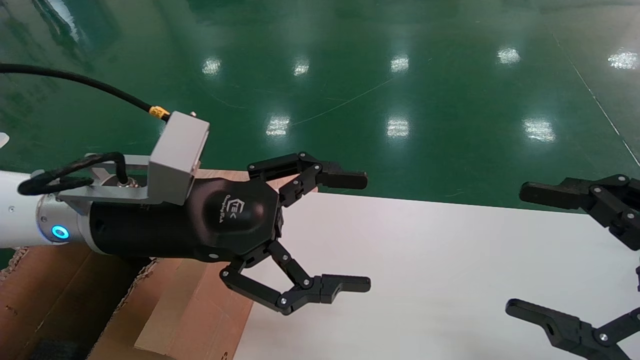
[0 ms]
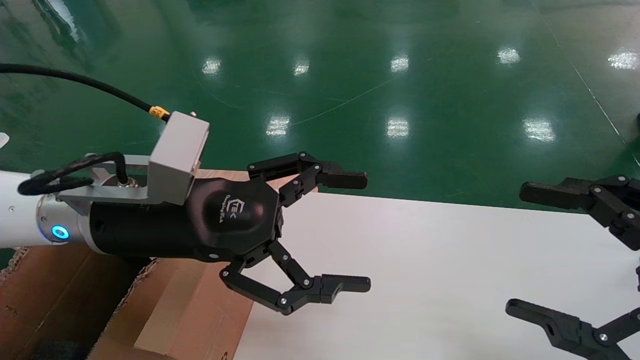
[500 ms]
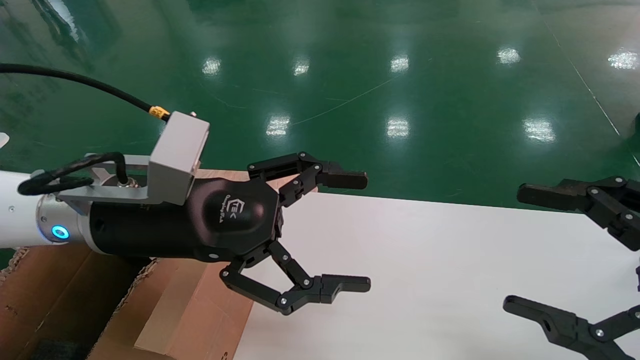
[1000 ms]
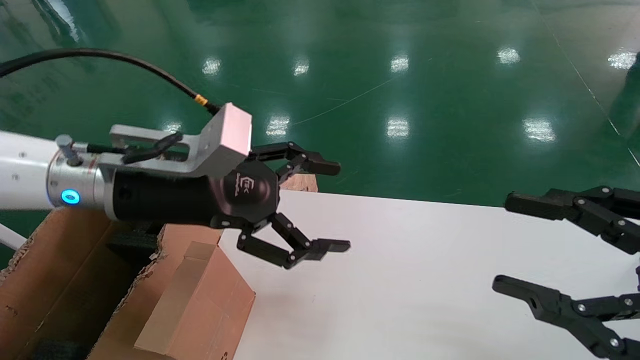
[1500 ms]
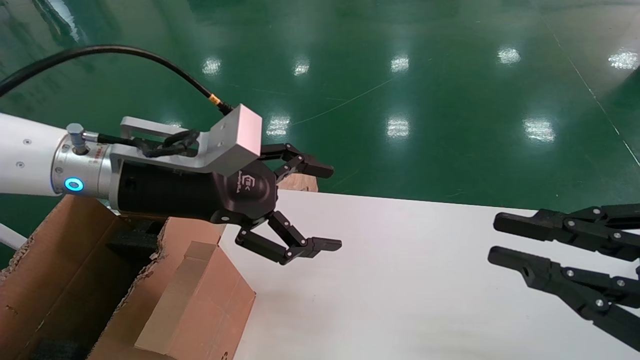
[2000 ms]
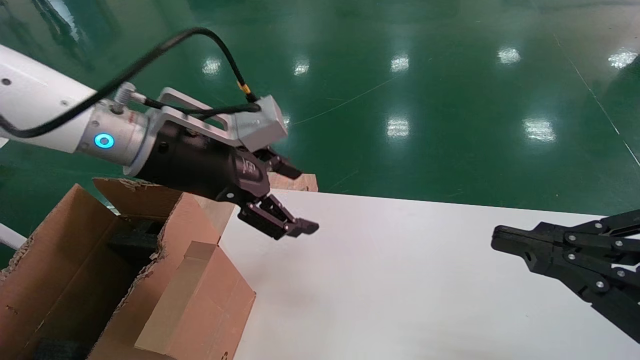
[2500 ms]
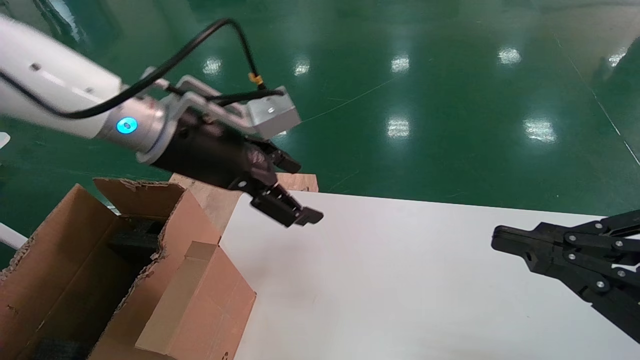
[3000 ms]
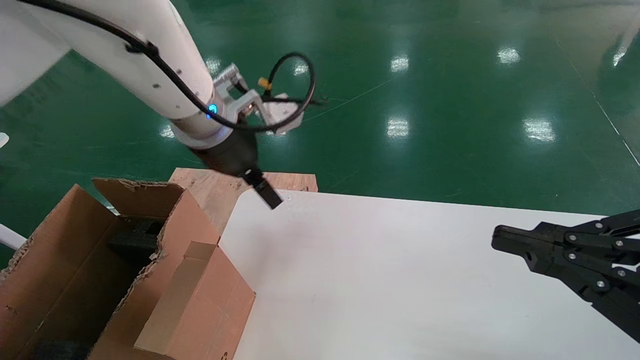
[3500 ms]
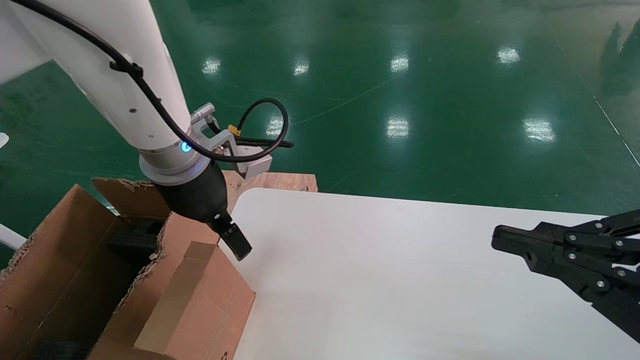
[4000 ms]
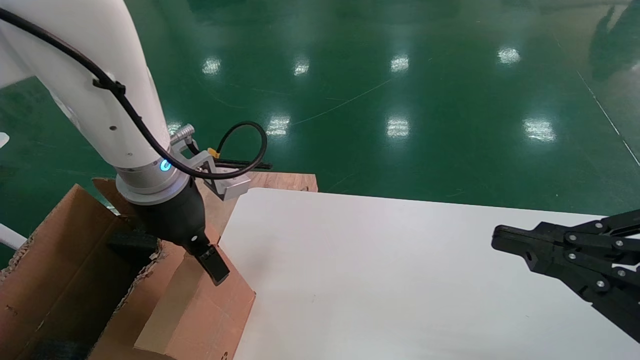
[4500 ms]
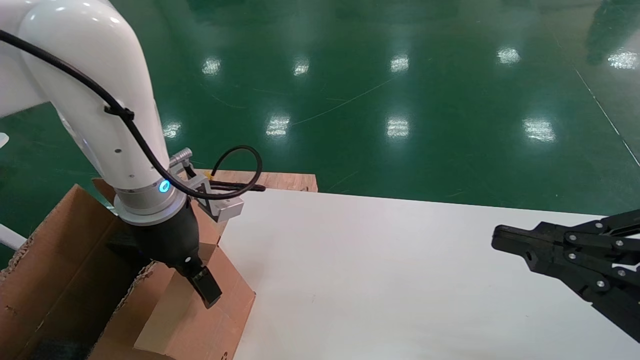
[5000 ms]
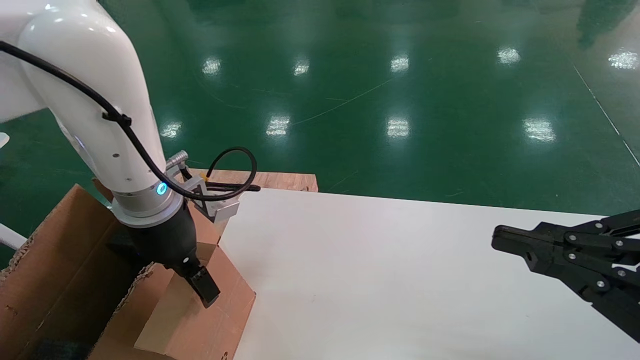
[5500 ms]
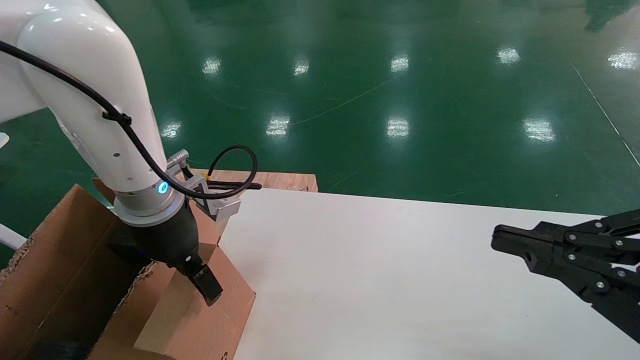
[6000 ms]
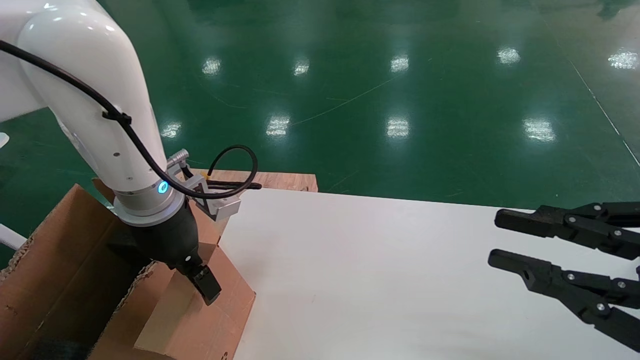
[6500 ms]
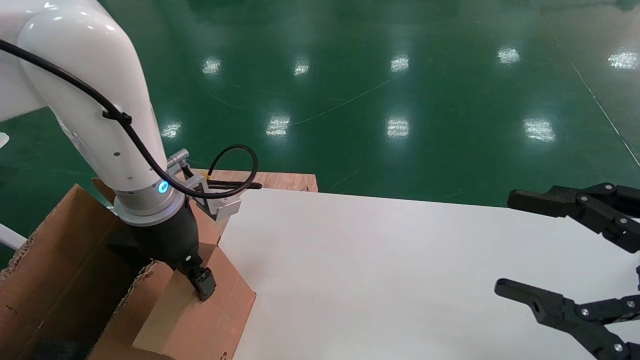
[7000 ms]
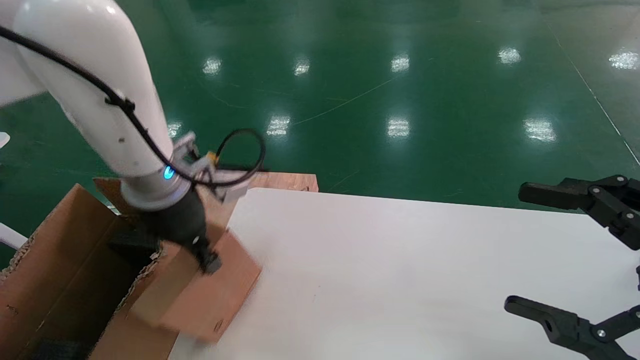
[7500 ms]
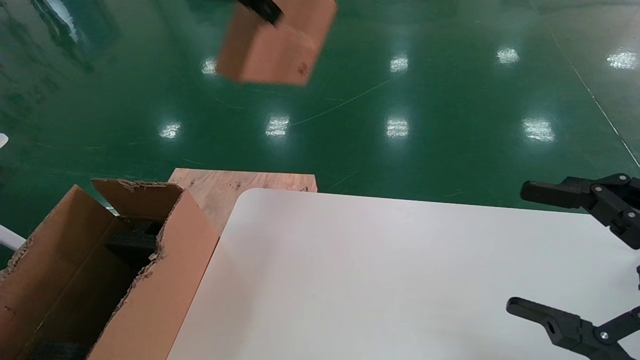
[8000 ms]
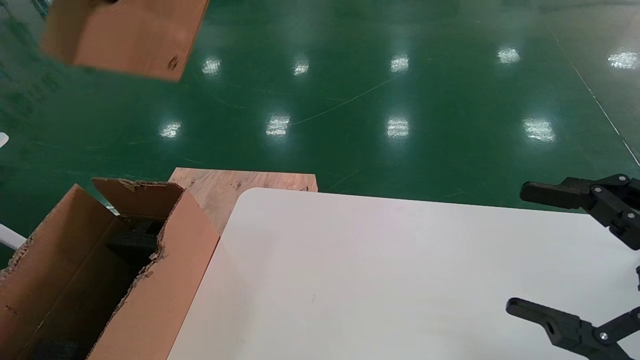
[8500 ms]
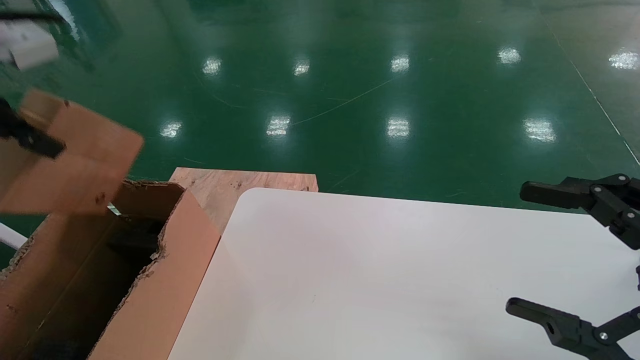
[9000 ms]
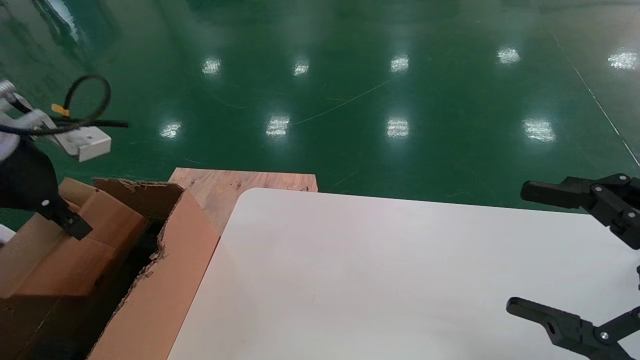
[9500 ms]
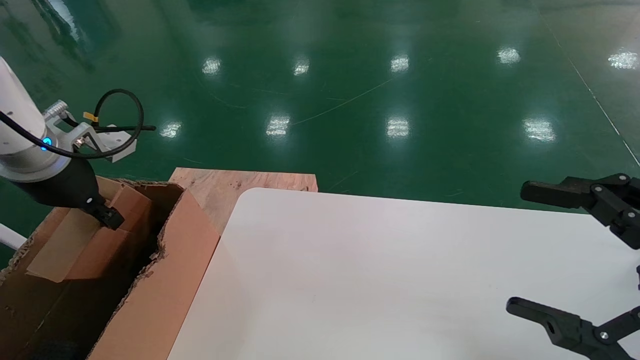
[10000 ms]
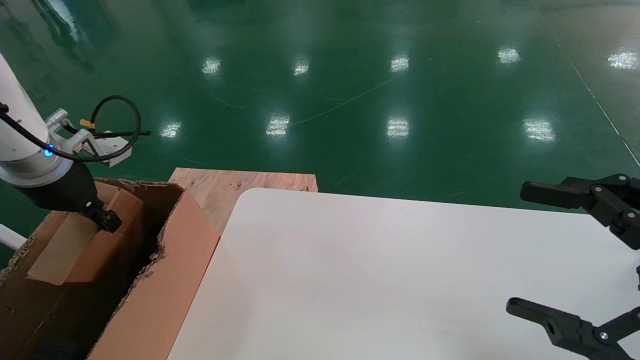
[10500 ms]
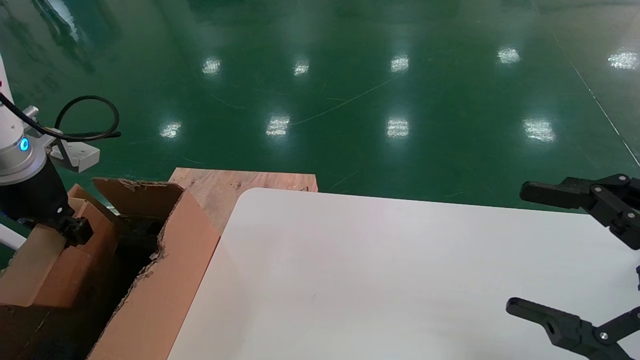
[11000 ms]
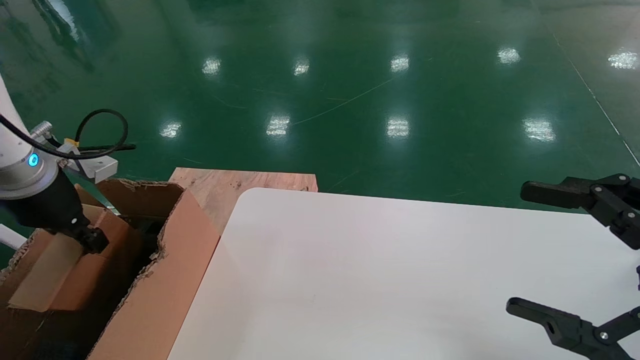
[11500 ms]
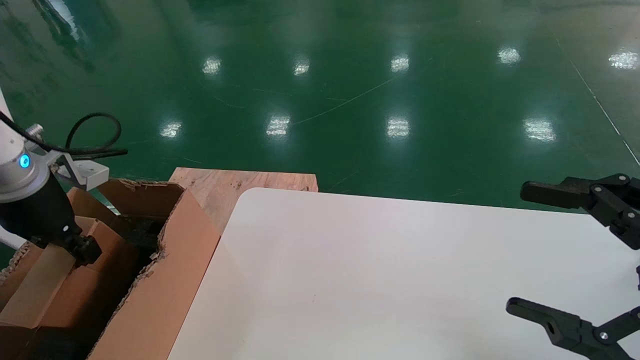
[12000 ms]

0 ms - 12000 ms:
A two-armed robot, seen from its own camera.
Task of the whole recording: place the small box on the table into the large box on the left.
Step, 1500 ms - 7000 ms: Pick up the mouse and the power cord paper box.
0 ms - 2000 ms: The right gripper closes its fingers. The left gripper changes place by approximately 5 cm.
4000 ms - 6000 ms: The left gripper goes roughly 5 cm downward.
6000 ms - 8000 ms: The left gripper is displaced upward by some 25 cm, and closes; the right gripper opens.
8000 ms - 10000 ms: The left gripper moves downward and to the left, approximately 25 cm.
10000 ms - 12000 ms: The left gripper changes place by about 5 cm.

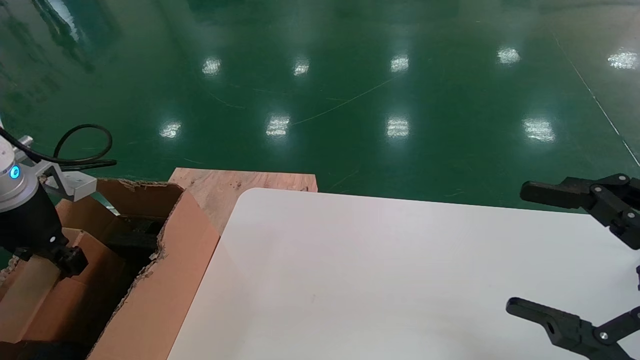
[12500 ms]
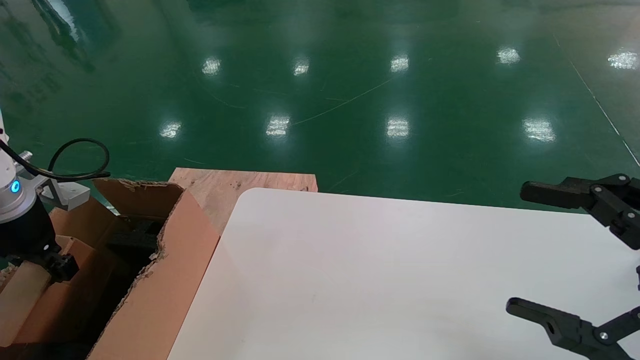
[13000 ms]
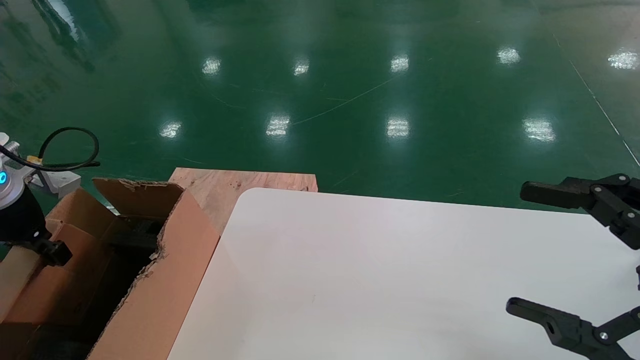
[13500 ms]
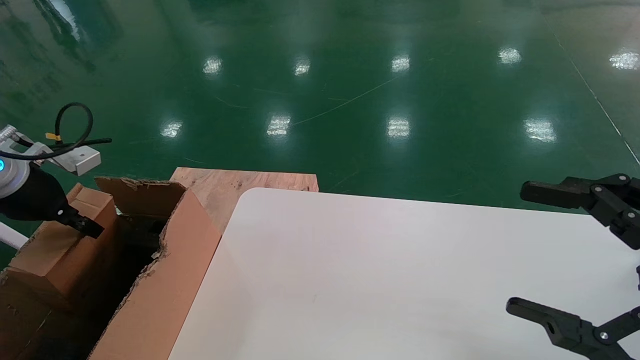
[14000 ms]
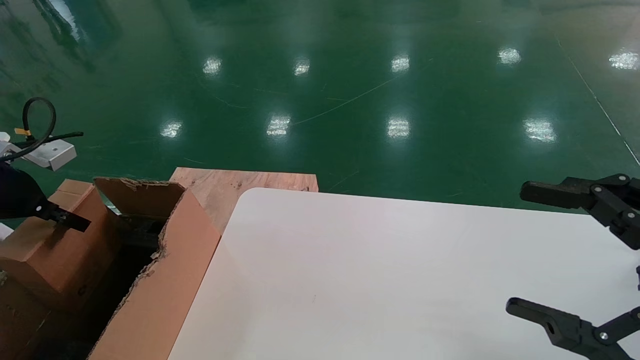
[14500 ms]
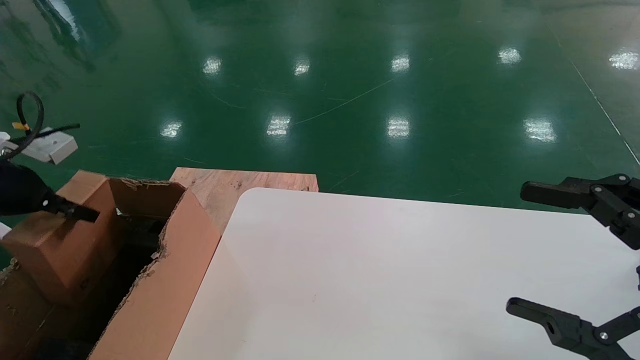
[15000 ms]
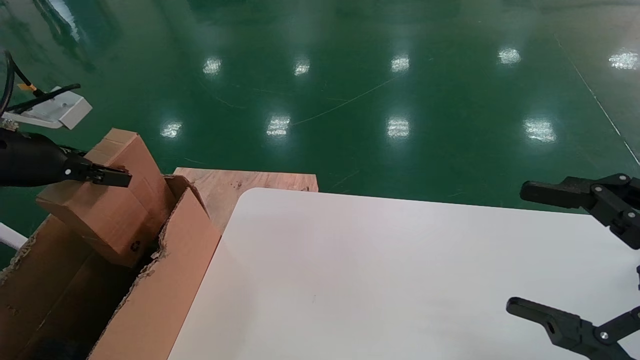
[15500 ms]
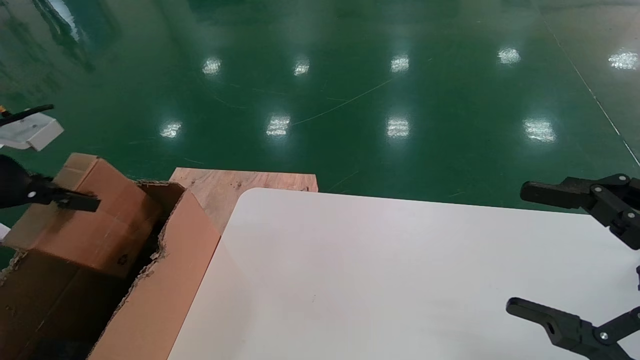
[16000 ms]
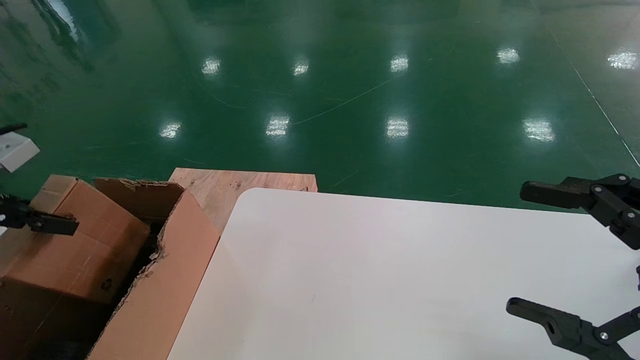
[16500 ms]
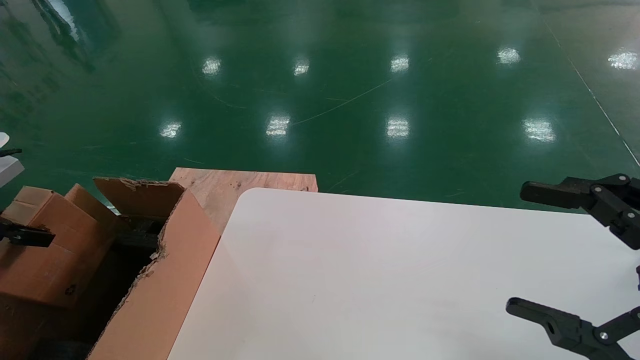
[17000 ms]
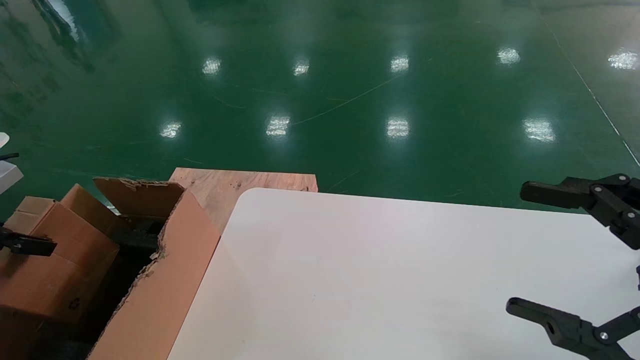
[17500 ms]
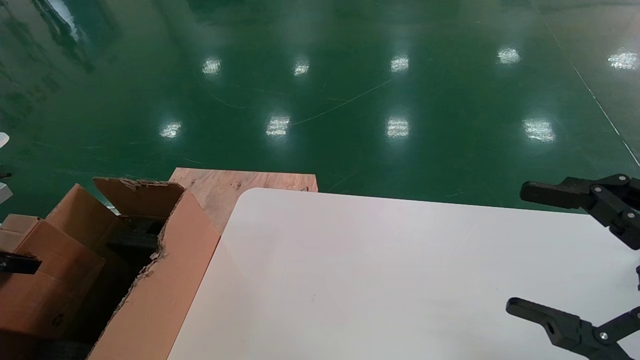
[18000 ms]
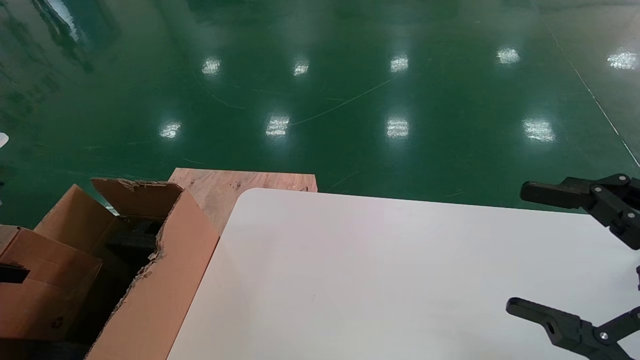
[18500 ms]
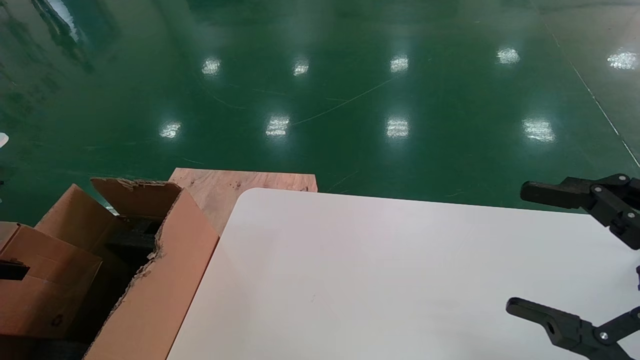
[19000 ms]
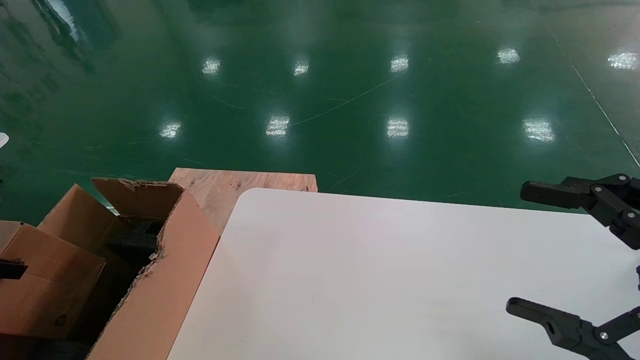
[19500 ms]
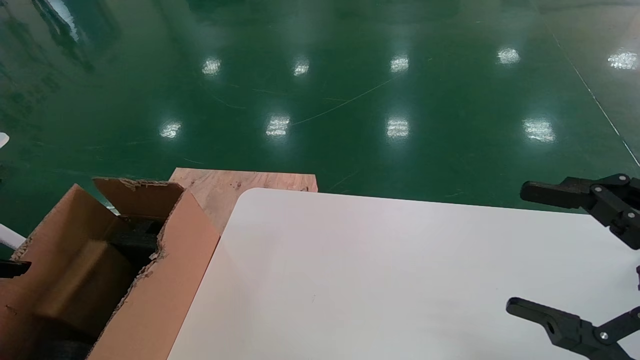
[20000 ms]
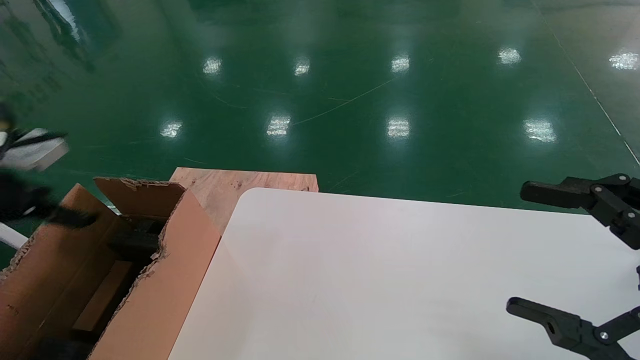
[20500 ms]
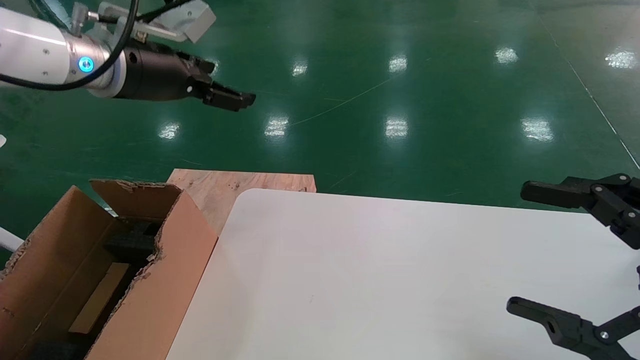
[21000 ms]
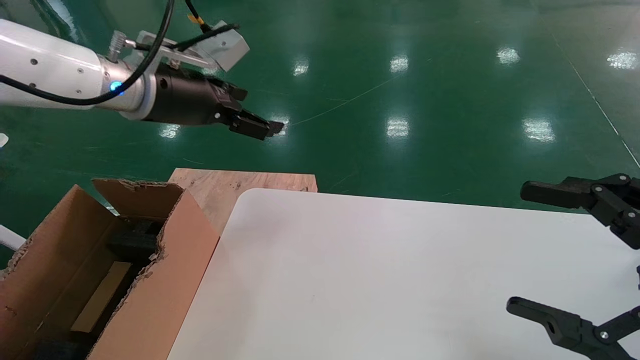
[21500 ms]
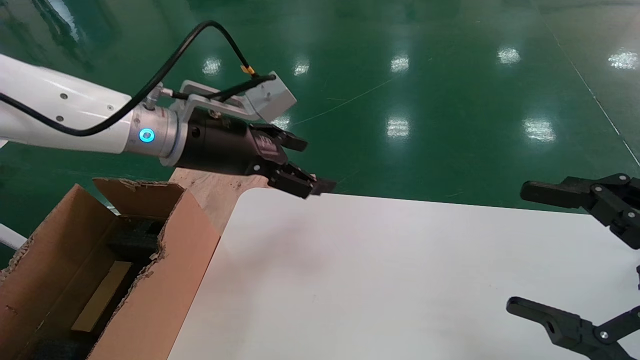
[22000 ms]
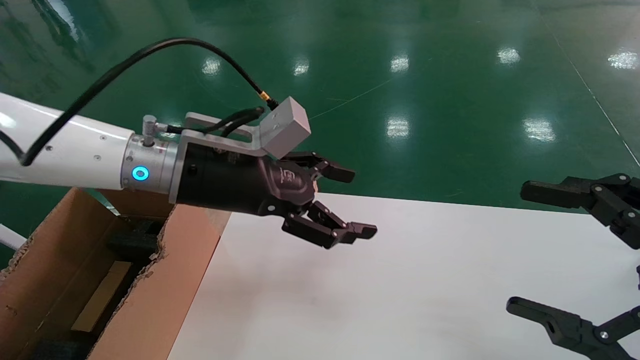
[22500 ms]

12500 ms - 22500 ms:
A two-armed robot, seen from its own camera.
Task of the whole recording: place the small box on the table into the large box on the left.
Step, 12500 ms - 20000 ms: Place the mouse and the power cord paper box into the container.
12500 ms - 14500 ms: The left gripper shifts about 5 cm to the left.
14500 ms - 16500 ms: The left gripper travels backward by some 5 cm.
16500 ms - 18500 ms: The left gripper goes approximately 10 cm downward and to the left.
18500 ms - 20500 ms: The left gripper travels forward, upward and to the right by about 15 cm, and opens up.
20500 ms - 22500 ms: The left gripper heads to the right, covering roughly 30 cm.
